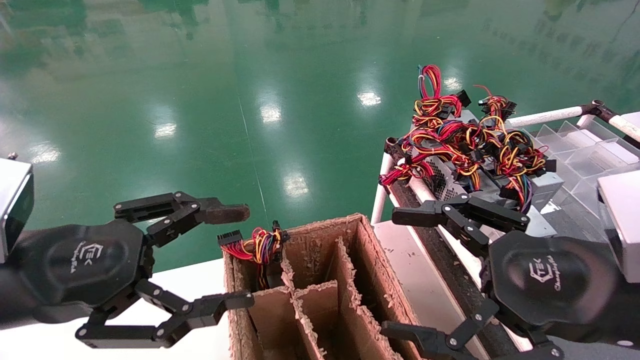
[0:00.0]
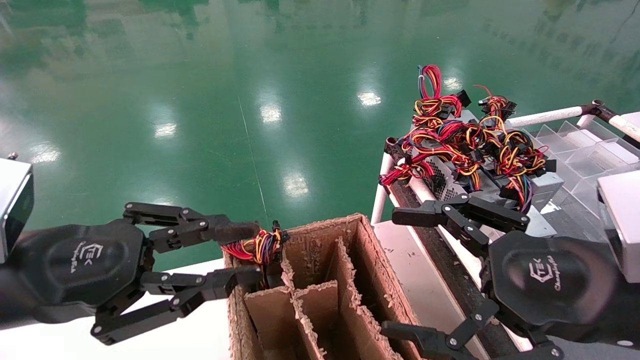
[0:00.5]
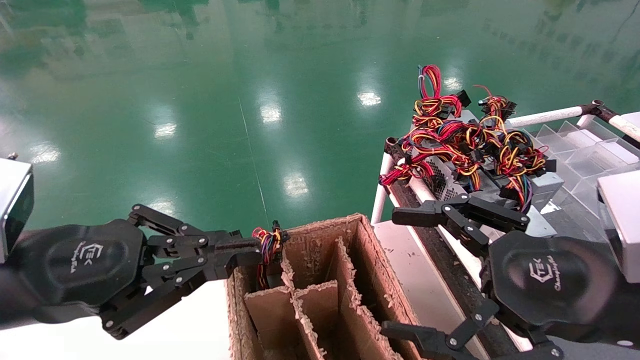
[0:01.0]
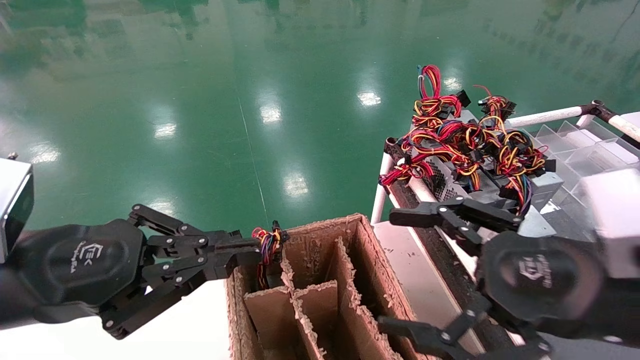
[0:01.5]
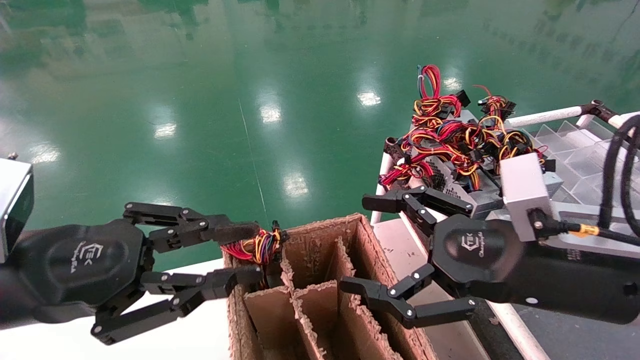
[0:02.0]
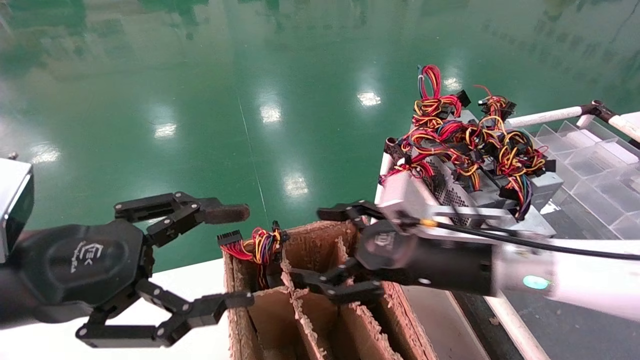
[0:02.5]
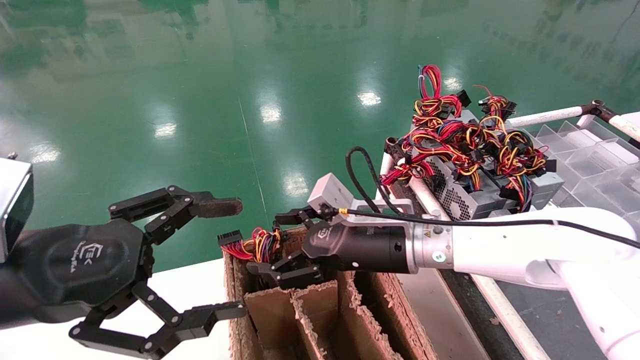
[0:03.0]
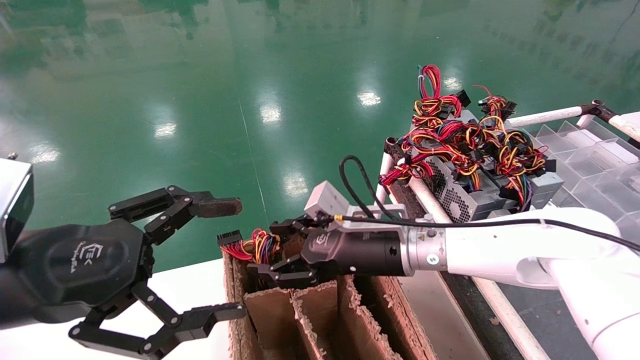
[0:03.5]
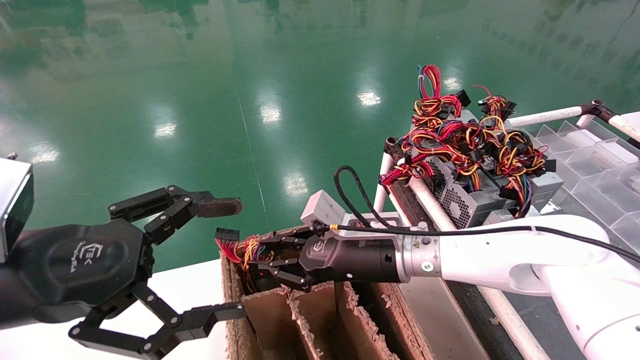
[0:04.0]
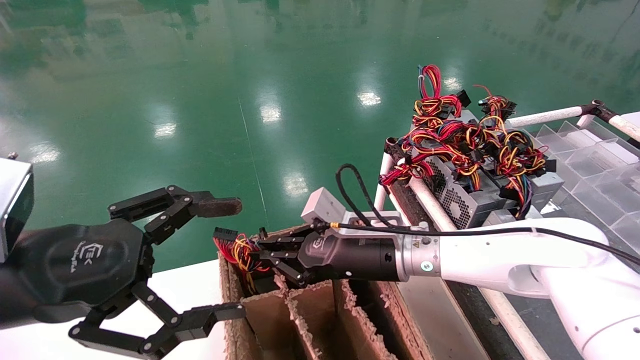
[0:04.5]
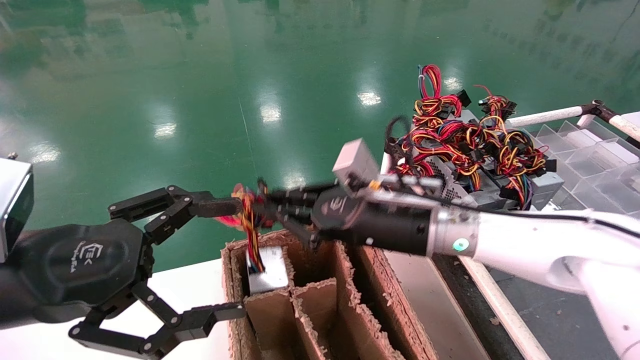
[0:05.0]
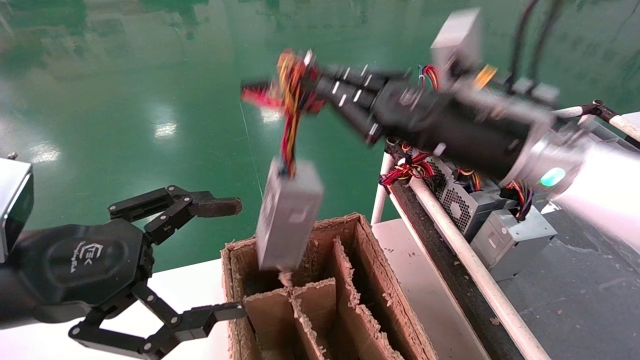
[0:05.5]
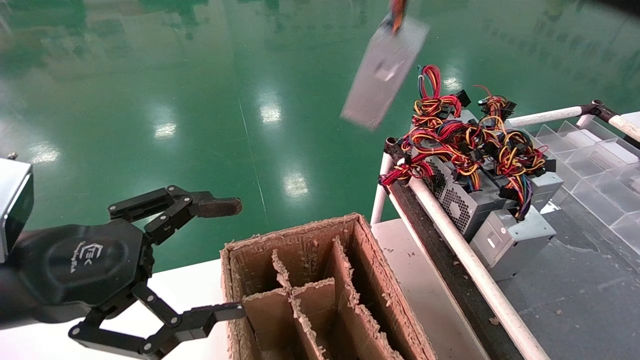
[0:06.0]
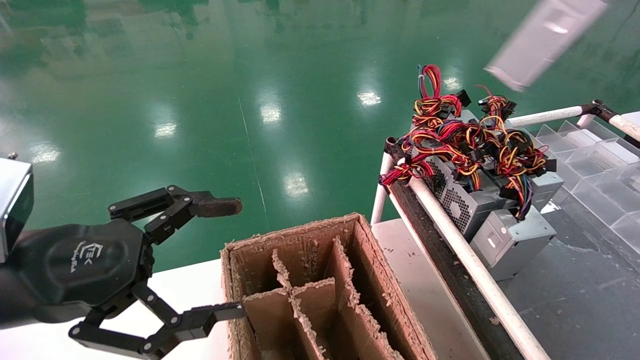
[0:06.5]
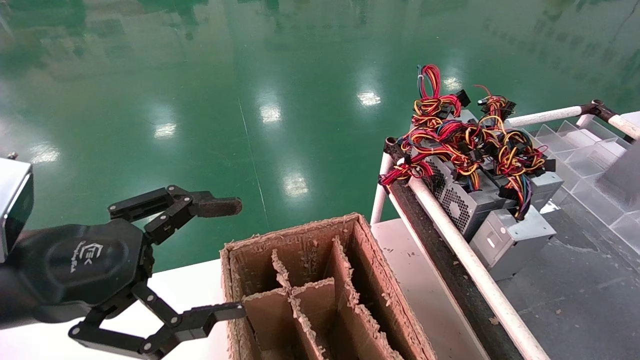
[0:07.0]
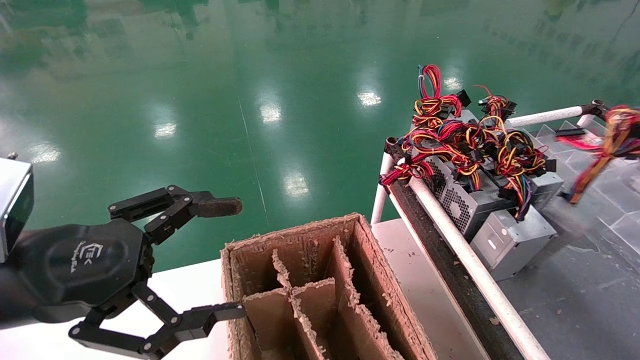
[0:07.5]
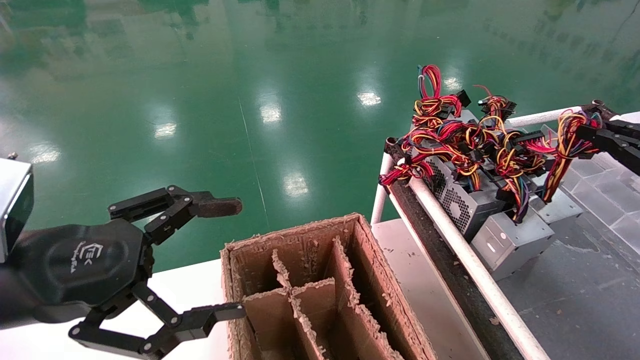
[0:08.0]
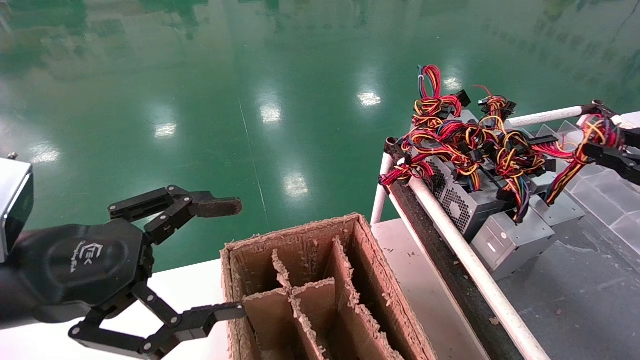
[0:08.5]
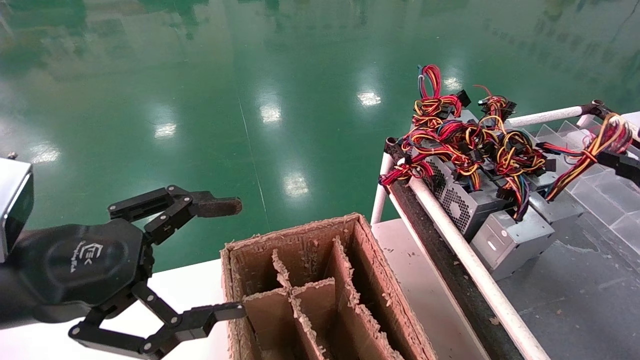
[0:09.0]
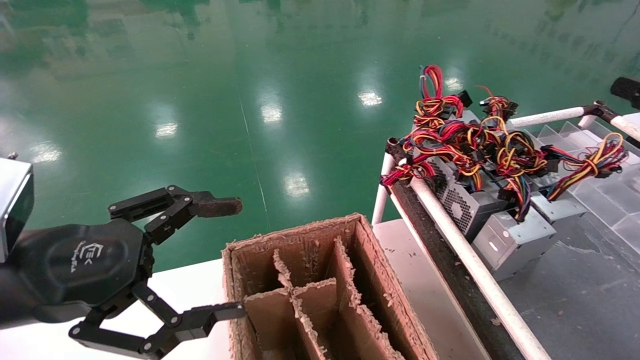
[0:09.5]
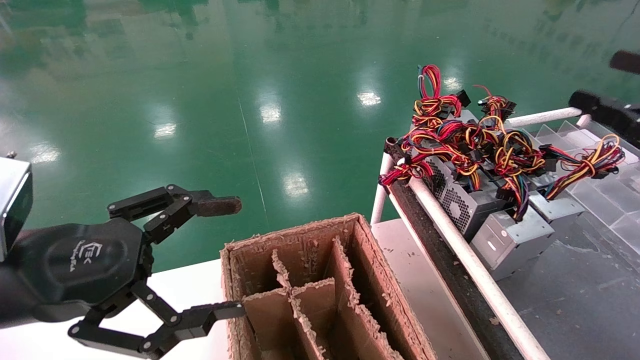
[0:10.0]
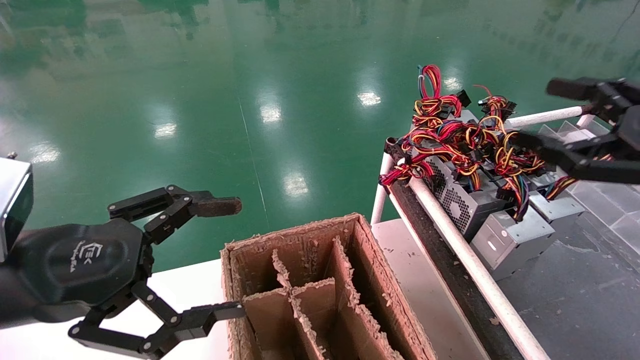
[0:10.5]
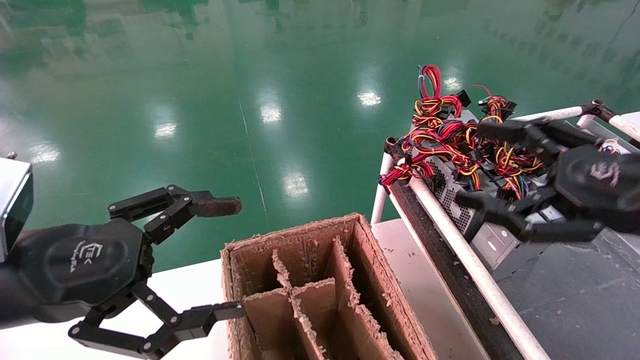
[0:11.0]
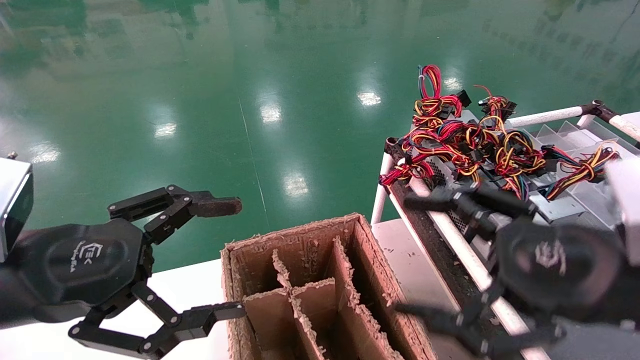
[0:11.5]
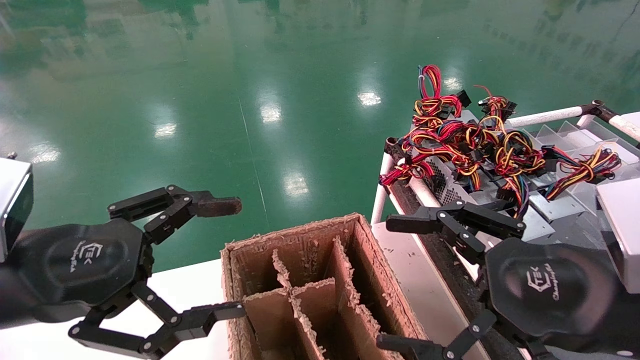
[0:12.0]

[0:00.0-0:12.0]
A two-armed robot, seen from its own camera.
Step, 0:01.0 to 0:05.0: Grab and lift the power supply from the large box.
Step, 0:05.5 to 0:09.0: Place the power supply on the operating table.
0:00.0 to 0:02.0: The left gripper closes its fingers; the right gripper ends up approximately 5 cm from where it was.
0:02.0 to 0:04.0: The right gripper travels forward, to the left and downward by about 20 cm, and closes. Meanwhile the left gripper opens its fingers.
0:04.0 to 0:06.0: The right gripper shifts some 35 cm upward and to the right, and closes its fingers.
0:06.0 to 0:08.0: The right gripper moves to the right and downward, roughly 25 cm.
0:08.0 to 0:10.0: The right gripper changes place by roughly 5 cm, and opens its fingers.
0:10.0 to 0:12.0: The right gripper goes about 20 cm to the left.

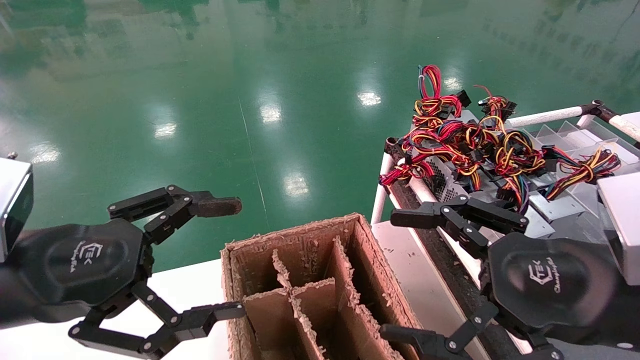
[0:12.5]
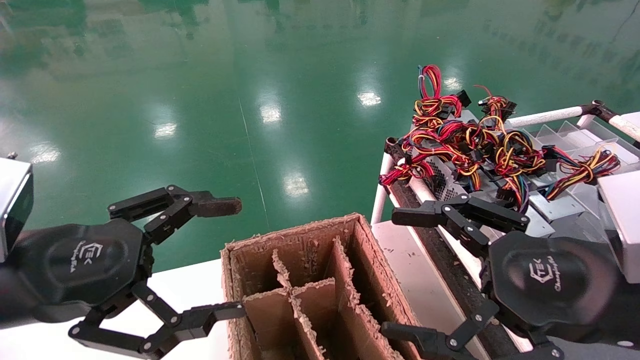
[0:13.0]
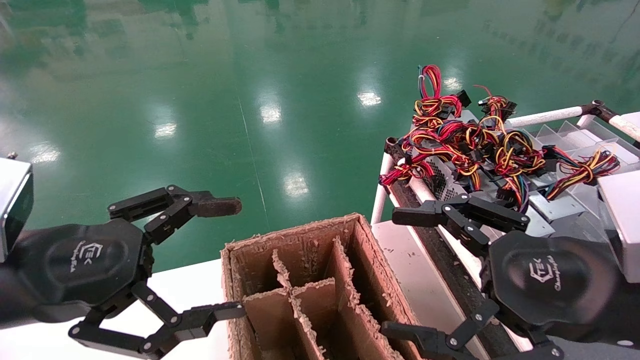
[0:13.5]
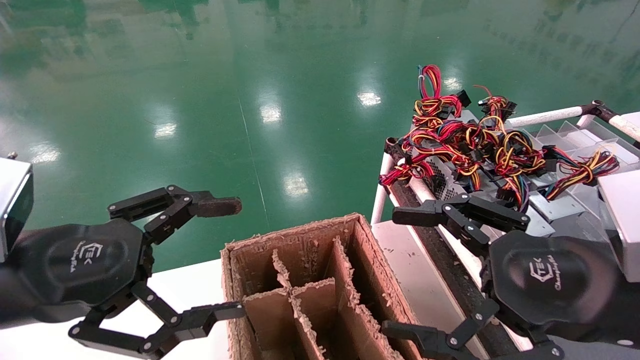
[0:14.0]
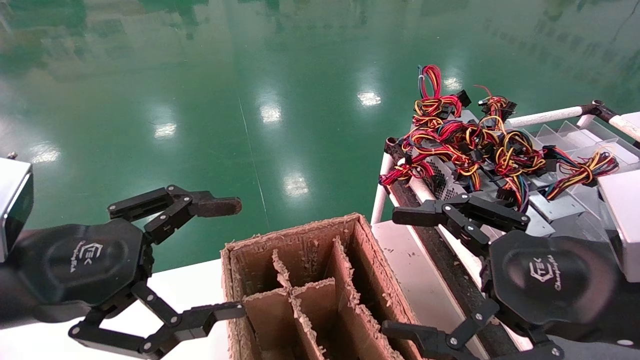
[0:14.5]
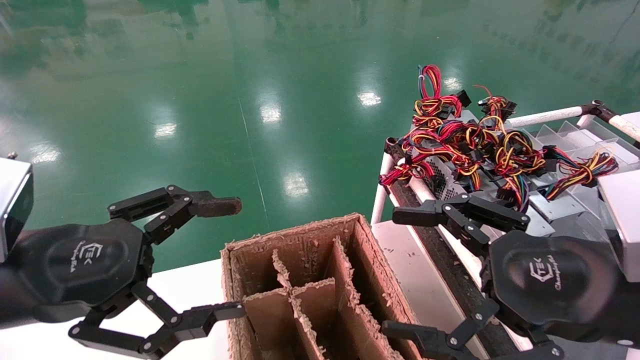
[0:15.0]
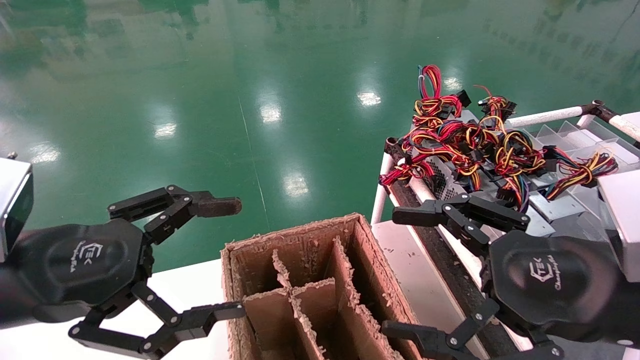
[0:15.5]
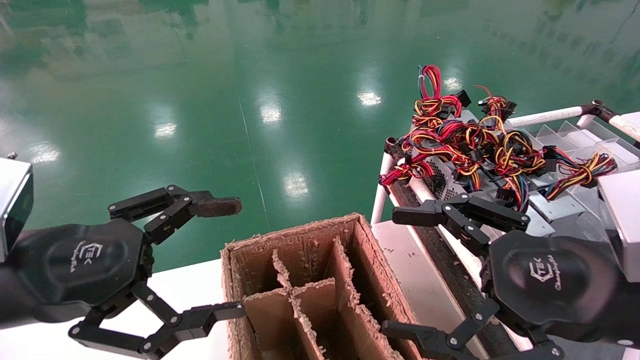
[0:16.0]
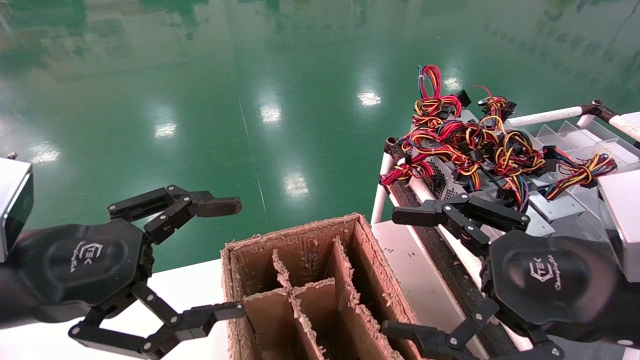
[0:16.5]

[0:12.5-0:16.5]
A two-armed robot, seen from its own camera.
0:12.5 to 0:16.5: The two grippers keep their place.

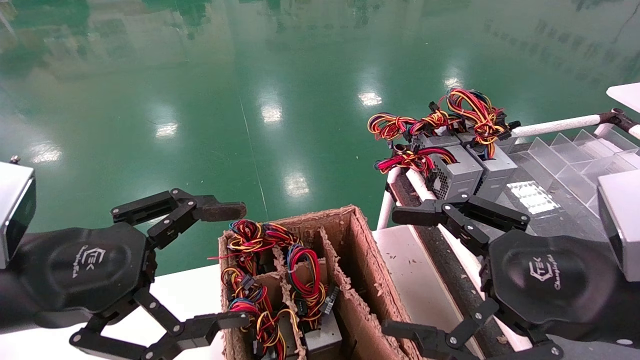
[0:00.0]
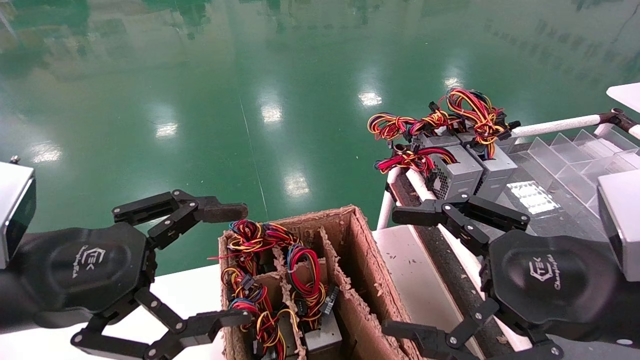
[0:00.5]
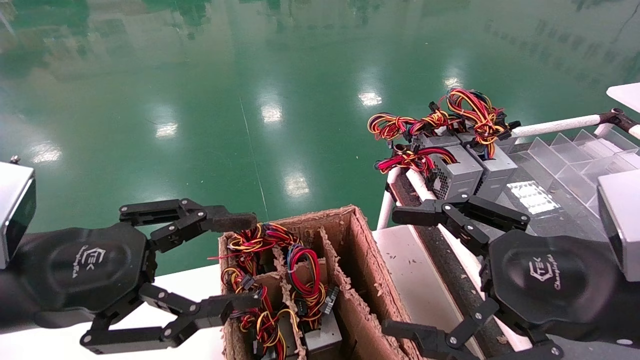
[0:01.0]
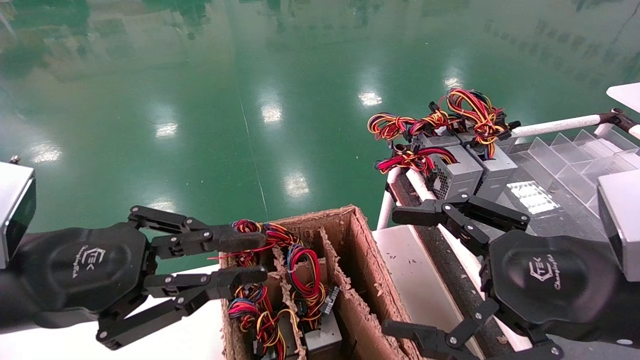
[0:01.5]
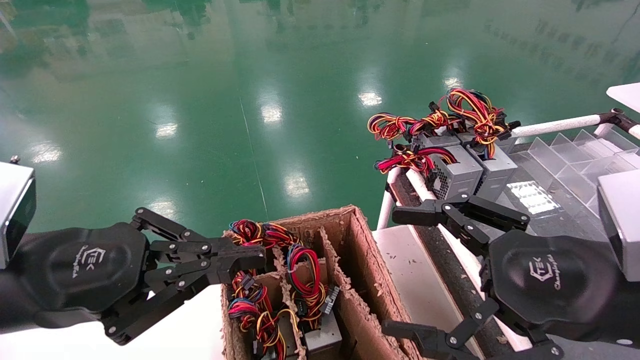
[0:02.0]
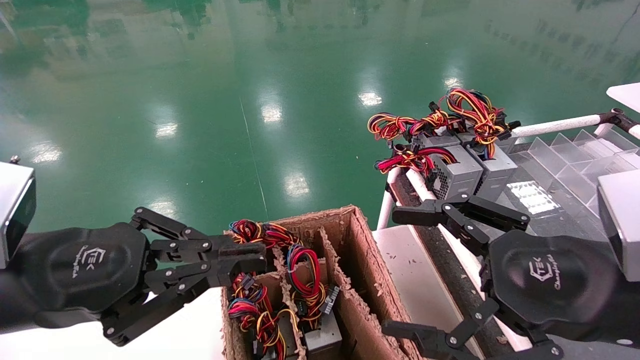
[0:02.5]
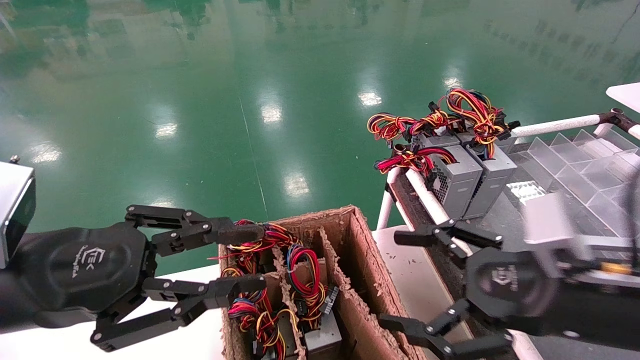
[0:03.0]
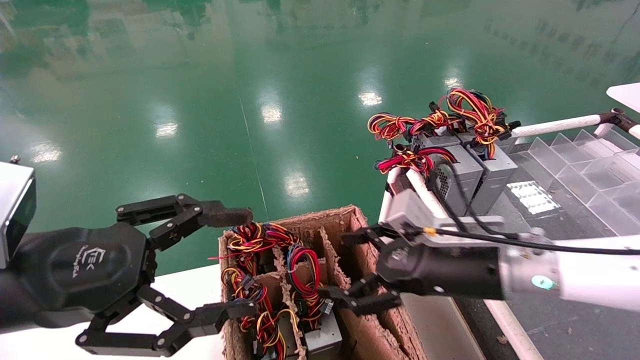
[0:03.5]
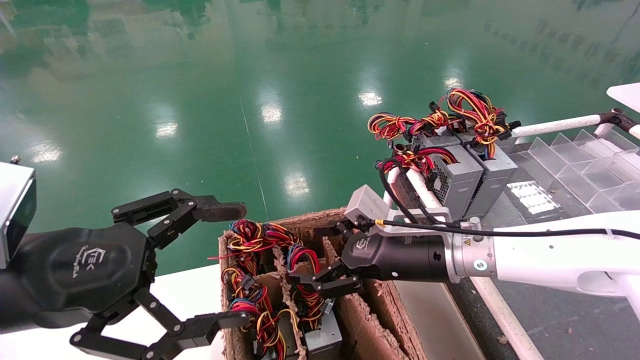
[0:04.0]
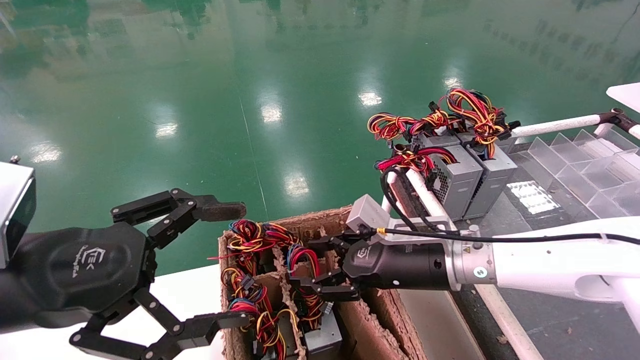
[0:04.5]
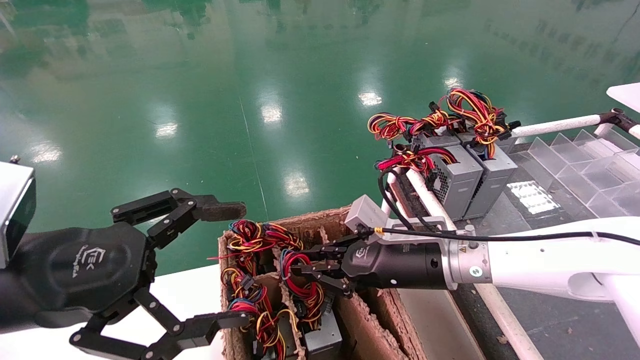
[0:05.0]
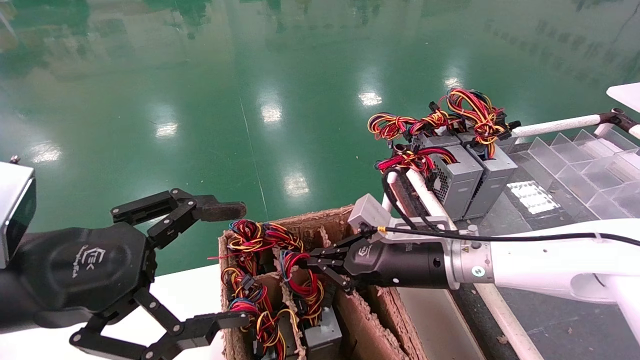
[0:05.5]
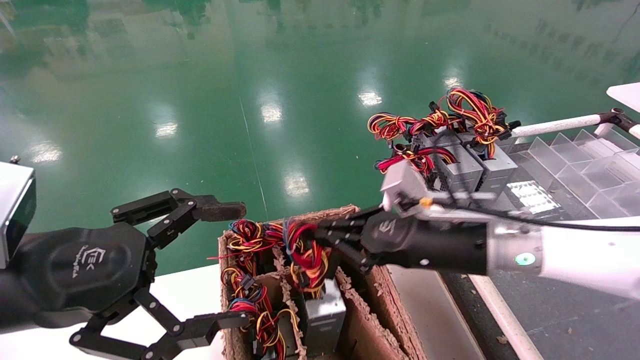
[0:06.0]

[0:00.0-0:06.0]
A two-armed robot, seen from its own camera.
Step, 0:02.0 to 0:05.0: Grab and lift the power supply from the large box.
0:00.0 to 0:02.0: The left gripper closes.
0:02.0 to 0:04.0: The right gripper shifts roughly 20 cm forward, to the left and downward. The left gripper opens.
0:04.0 to 0:06.0: The right gripper moves some 5 cm, and closes up.
